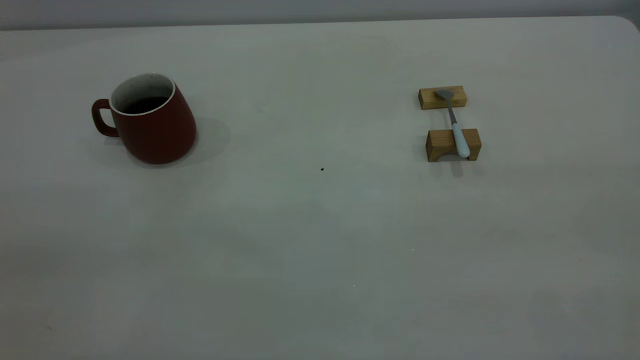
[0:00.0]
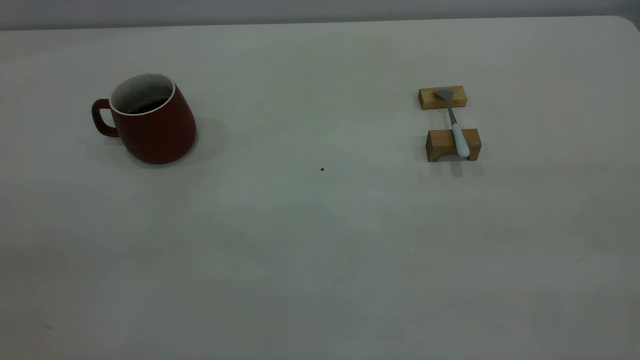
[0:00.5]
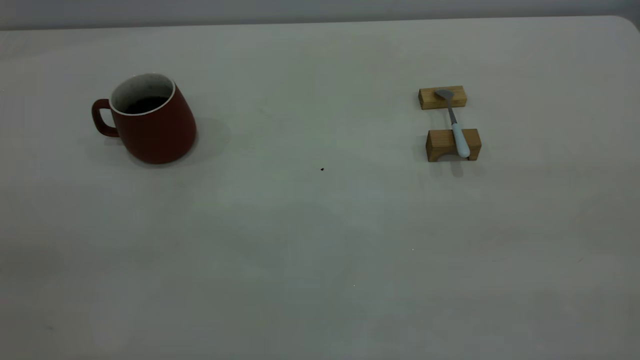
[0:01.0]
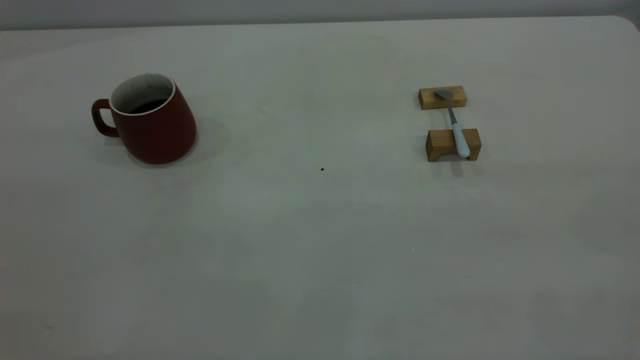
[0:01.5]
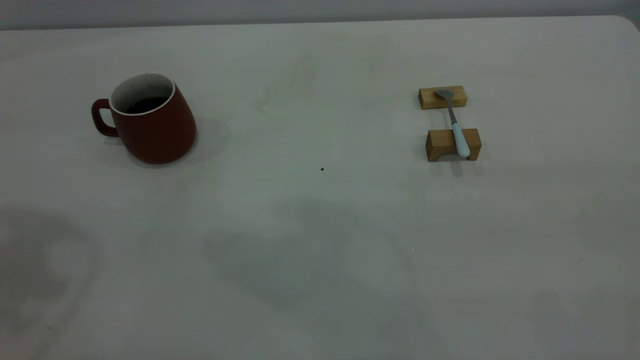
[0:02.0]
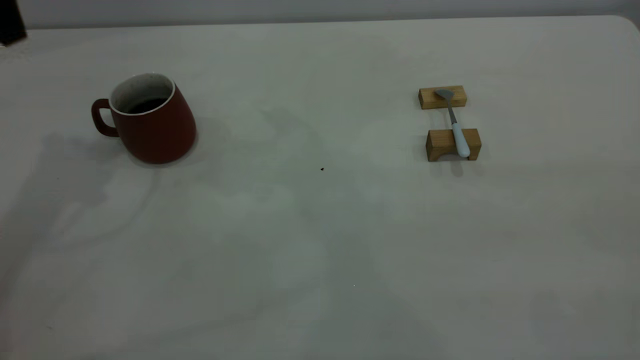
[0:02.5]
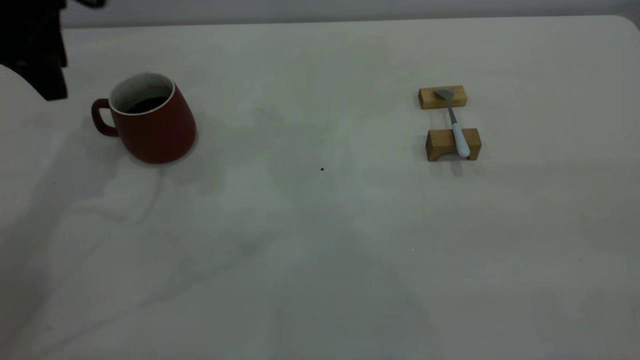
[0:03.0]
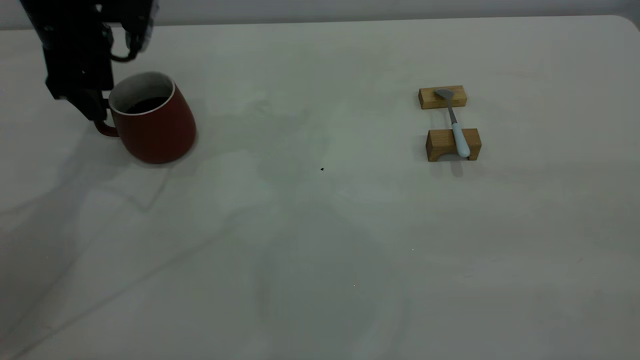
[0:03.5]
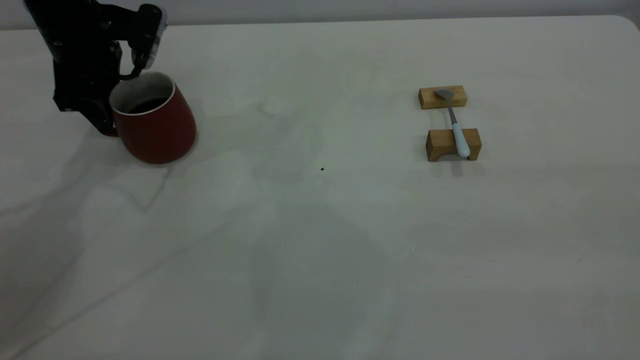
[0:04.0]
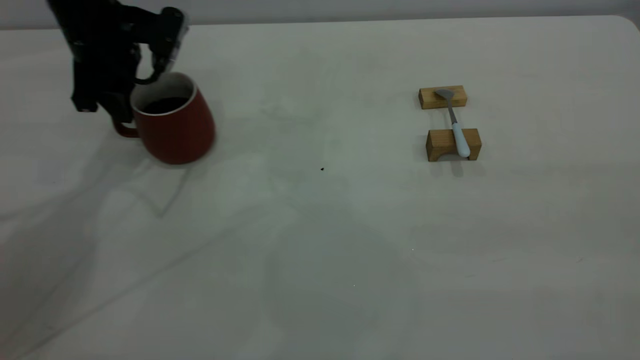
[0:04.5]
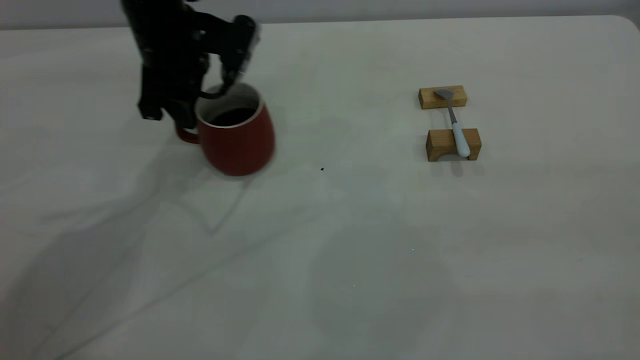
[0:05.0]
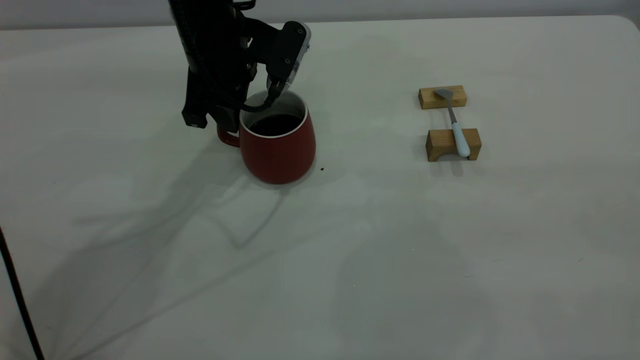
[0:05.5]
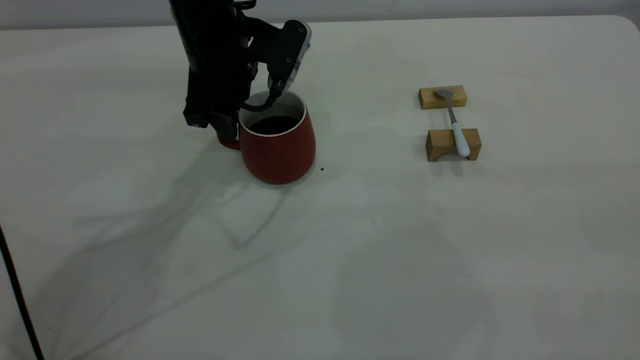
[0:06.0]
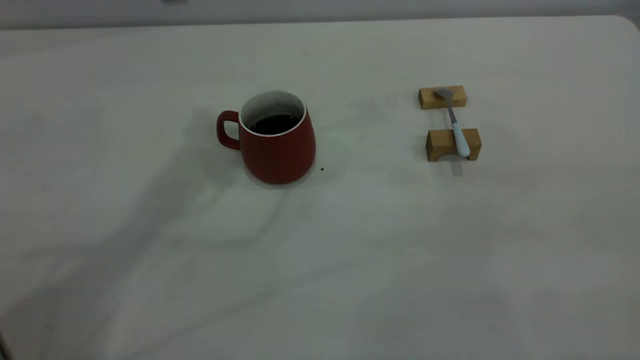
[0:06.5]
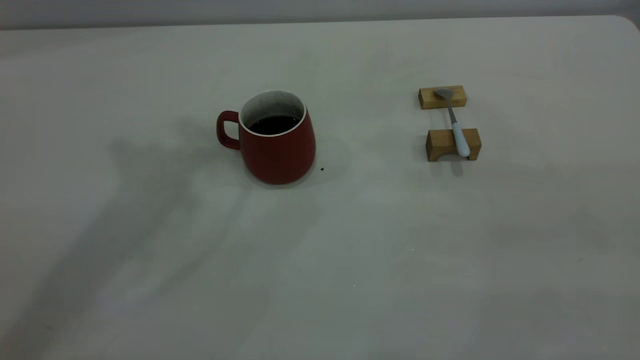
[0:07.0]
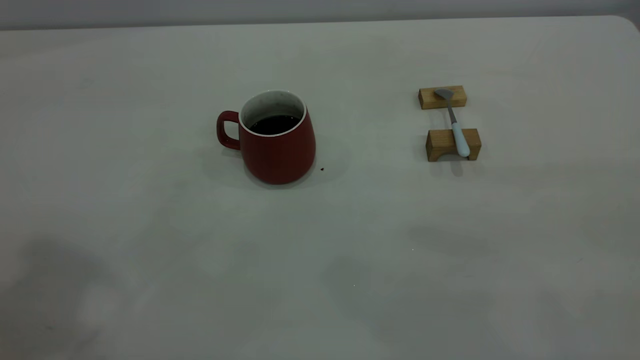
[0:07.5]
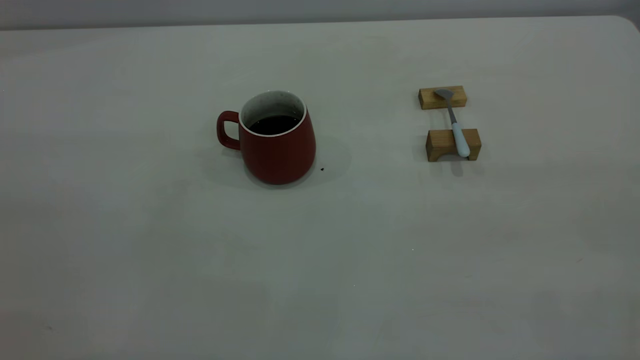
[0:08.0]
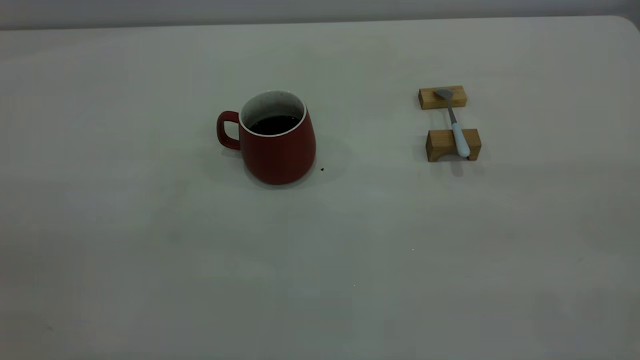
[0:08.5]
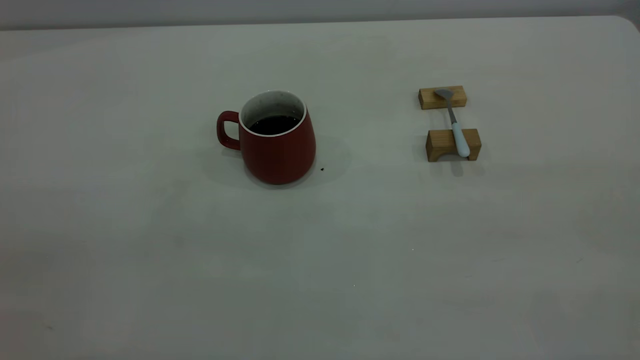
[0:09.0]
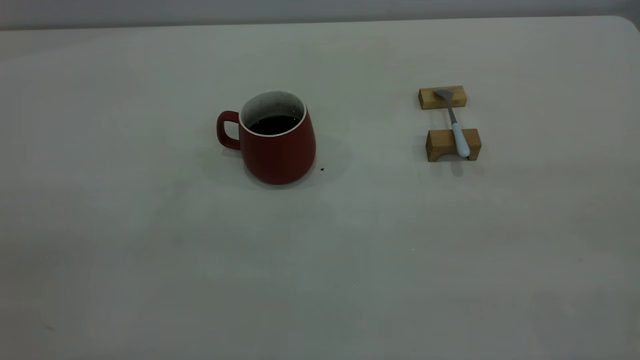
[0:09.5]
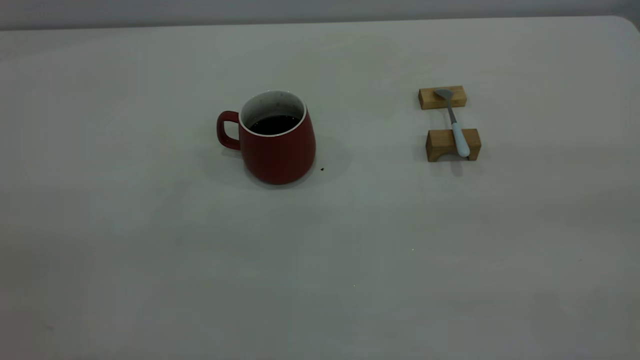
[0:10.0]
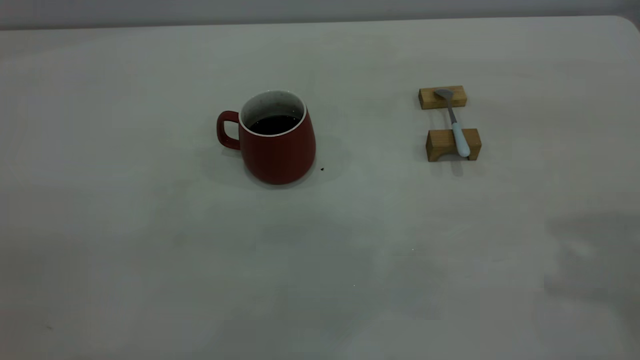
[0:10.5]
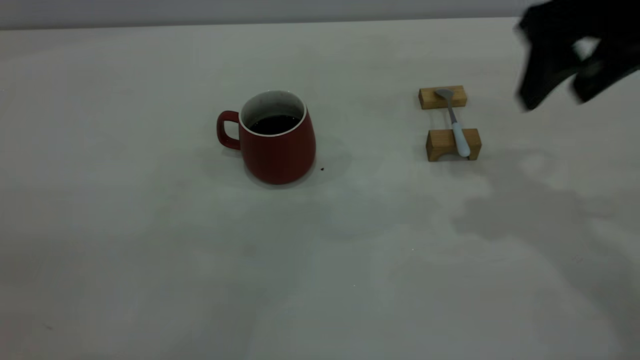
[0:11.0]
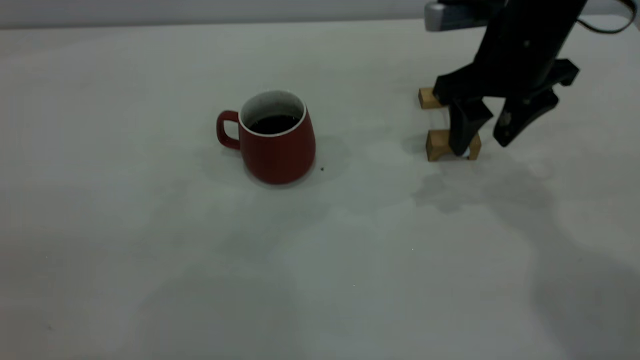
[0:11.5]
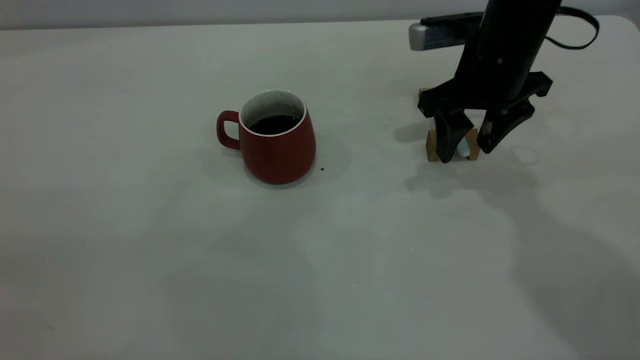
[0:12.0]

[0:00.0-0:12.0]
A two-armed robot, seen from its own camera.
Step, 0:00.0 to 0:06.0: Move the cup with coffee to the center of view.
0:02.0 to 0:04.0: The left gripper moves downward and forward, about 30 cm, and opens.
0:04.0 to 0:06.0: The left gripper shifts roughly 15 cm to the right, and closes, then opens again.
0:06.0 to 0:08.0: The left gripper is displaced backward, upward and to the left by roughly 50 cm, and closes up.
0:10.0 to 0:12.0: The right gripper heads forward and downward, covering roughly 50 cm, and opens up.

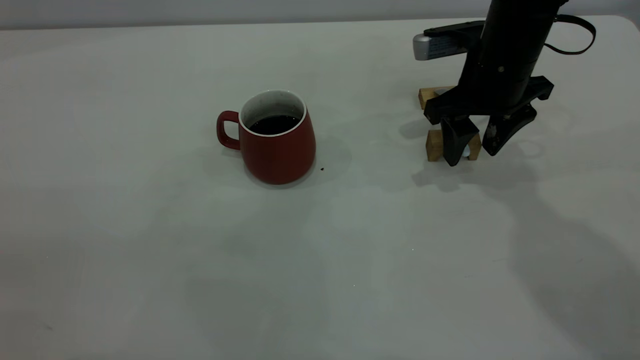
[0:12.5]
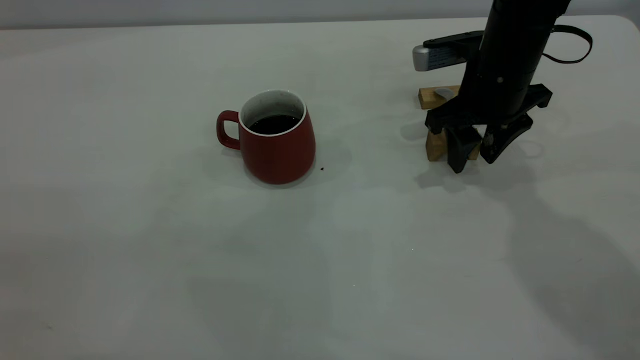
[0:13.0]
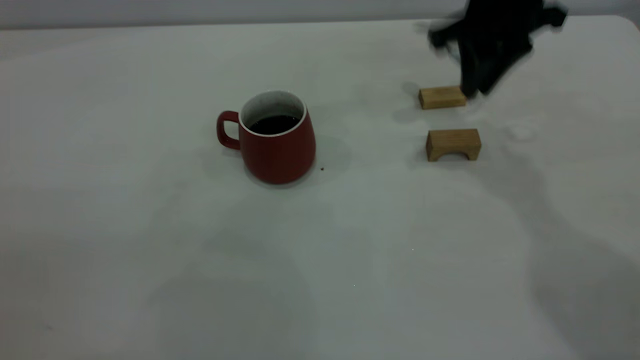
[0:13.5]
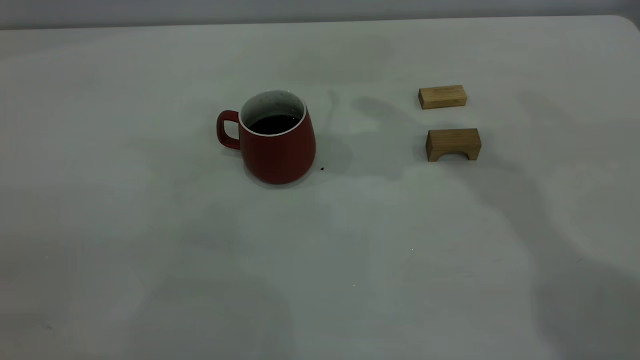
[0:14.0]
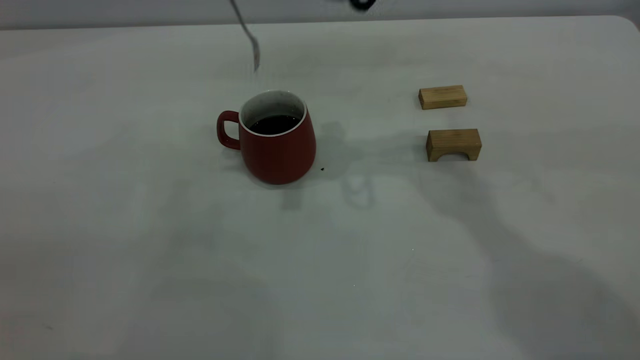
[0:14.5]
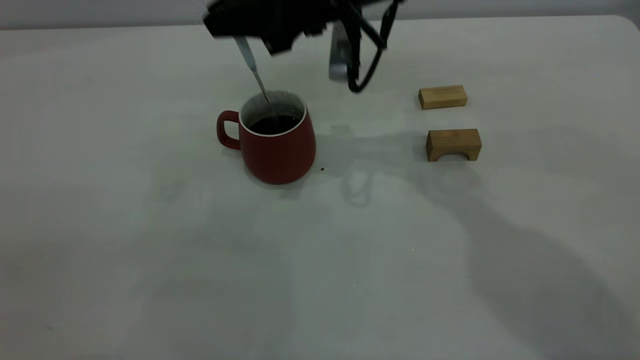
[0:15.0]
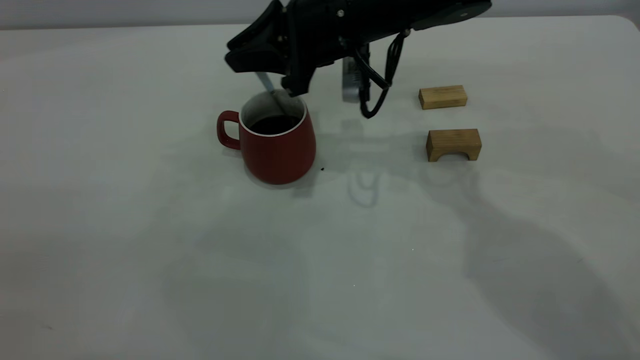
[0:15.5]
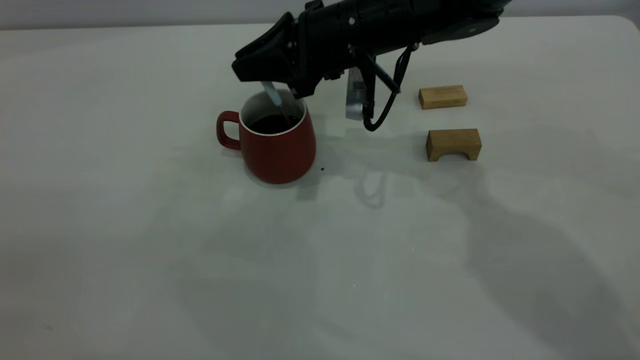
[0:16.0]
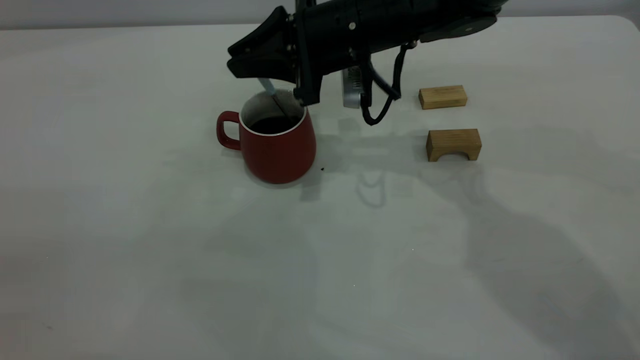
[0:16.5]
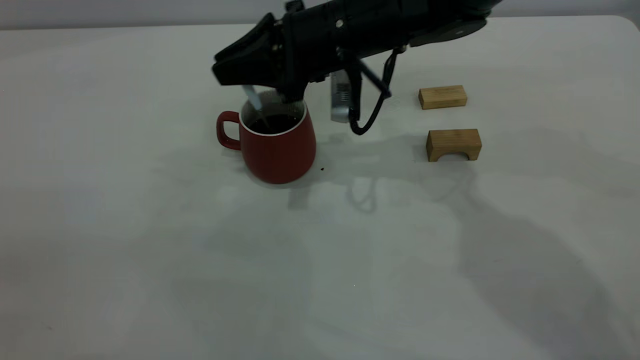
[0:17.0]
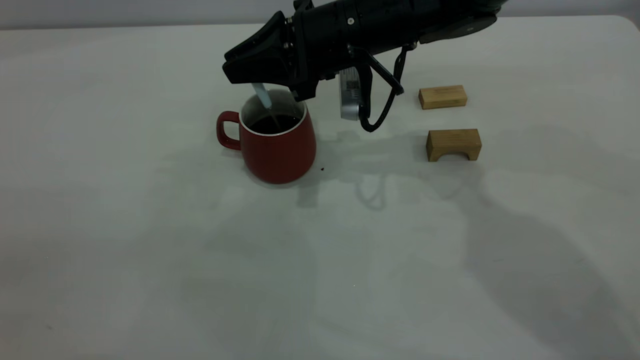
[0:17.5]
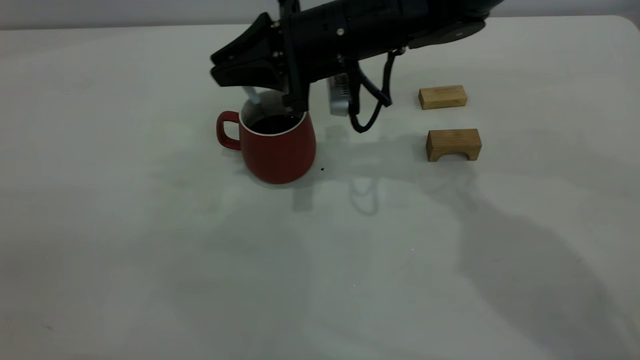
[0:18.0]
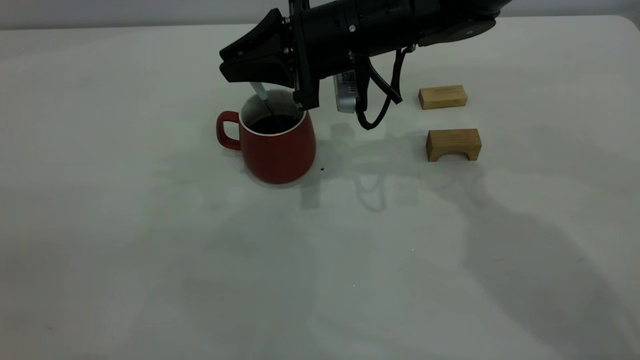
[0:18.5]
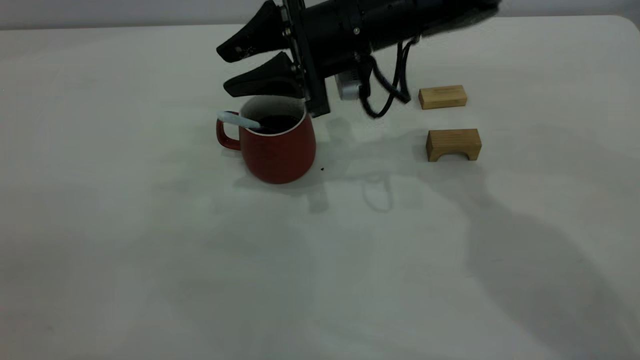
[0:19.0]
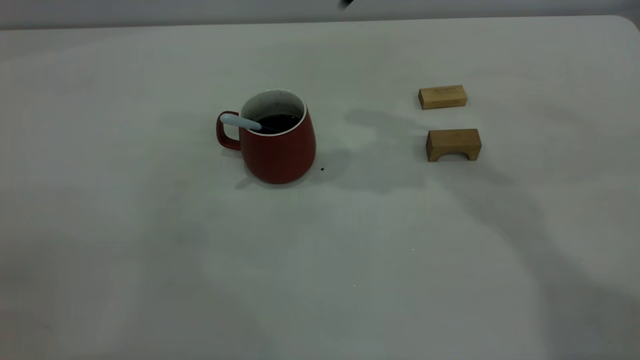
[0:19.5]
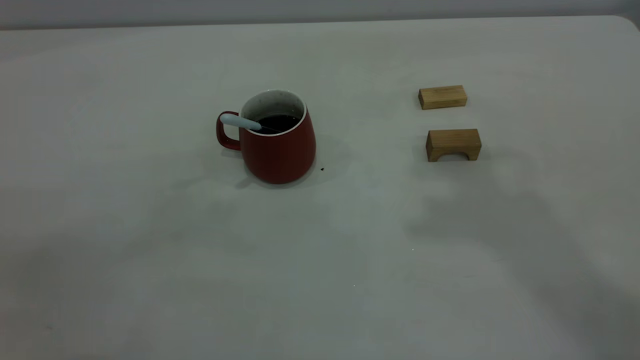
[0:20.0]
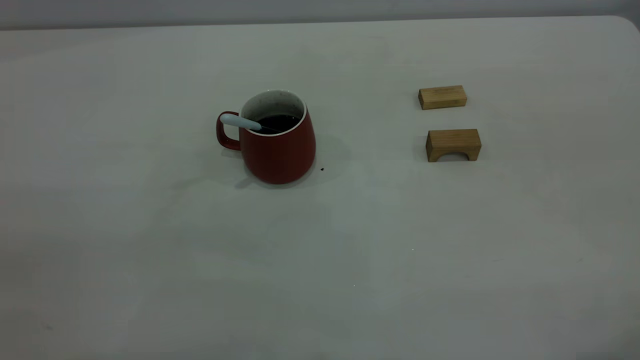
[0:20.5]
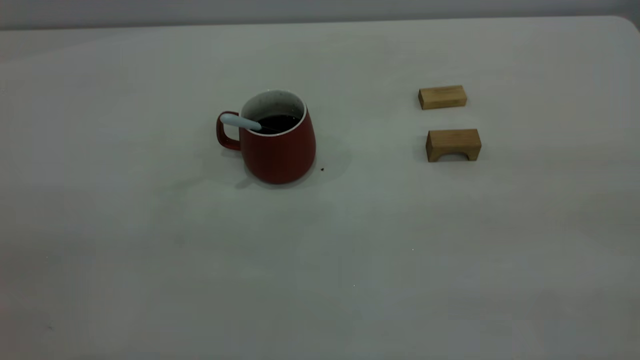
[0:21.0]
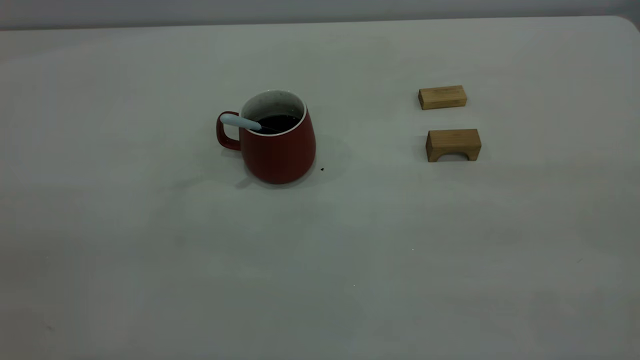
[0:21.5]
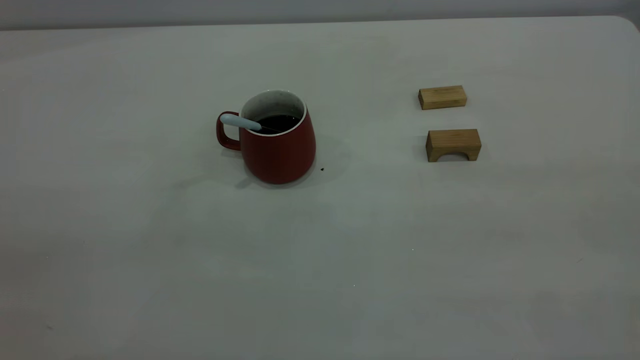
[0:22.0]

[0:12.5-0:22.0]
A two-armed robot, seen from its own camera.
Step, 0:13.5 to 0:19.0: Stir the coffee in the cup.
0:12.5 to 0:14.5: The right gripper moves to the left and upward, roughly 20 cm, and closes.
0:14.5 to 0:16.5: The right gripper moves downward, some 10 cm.
0:16.5 to 0:18.0: There are only small adjustments of the grippers.
0:18.0 to 0:20.0: The right gripper goes about 40 cm upward and to the right, and opens.
